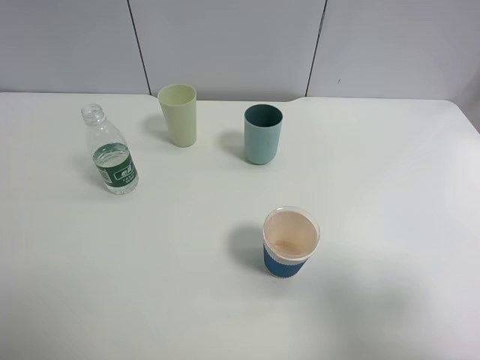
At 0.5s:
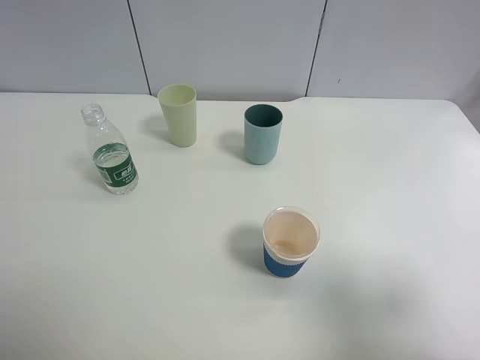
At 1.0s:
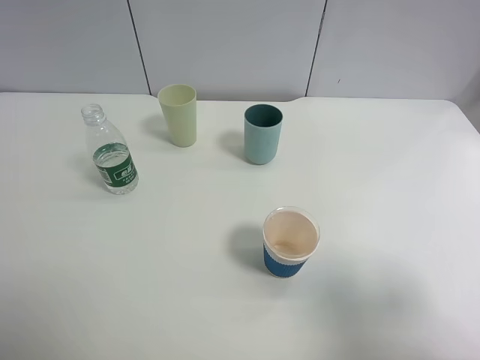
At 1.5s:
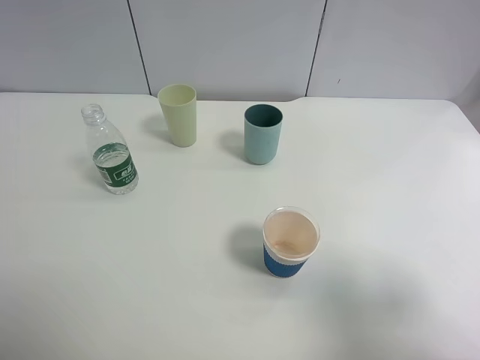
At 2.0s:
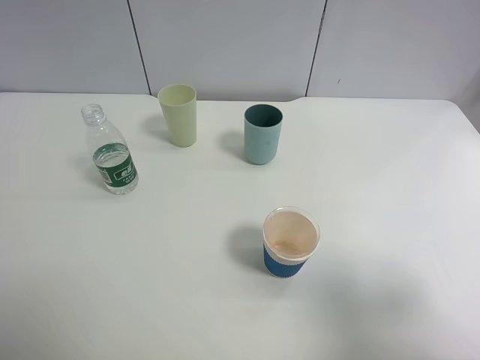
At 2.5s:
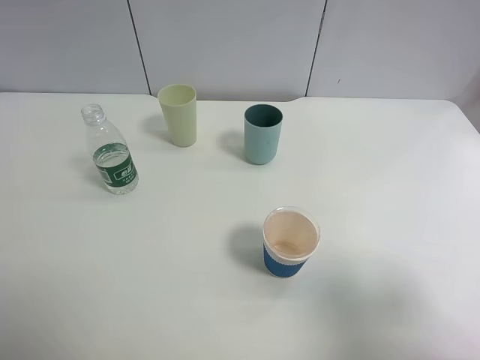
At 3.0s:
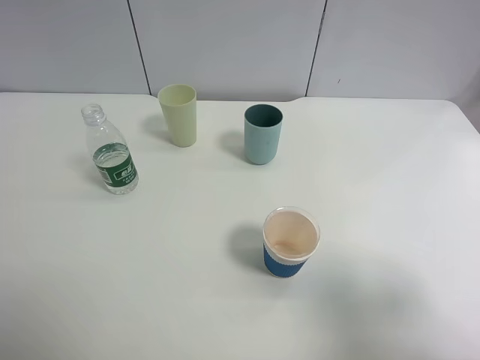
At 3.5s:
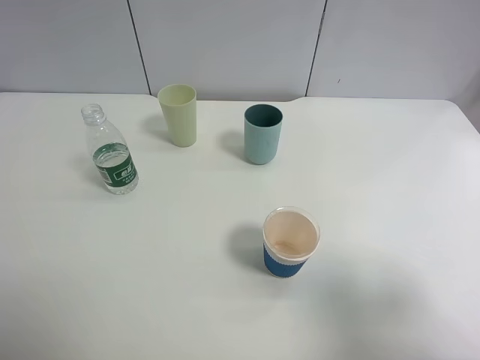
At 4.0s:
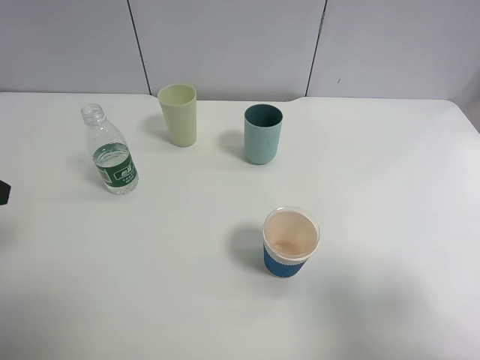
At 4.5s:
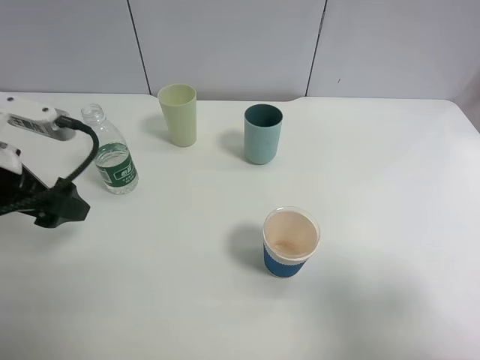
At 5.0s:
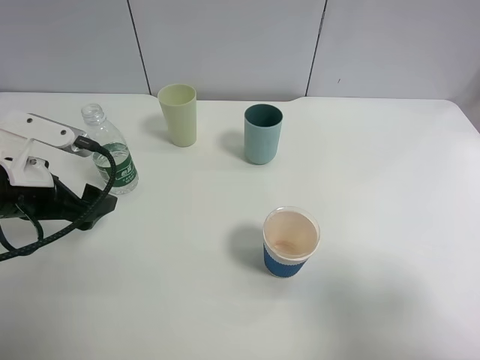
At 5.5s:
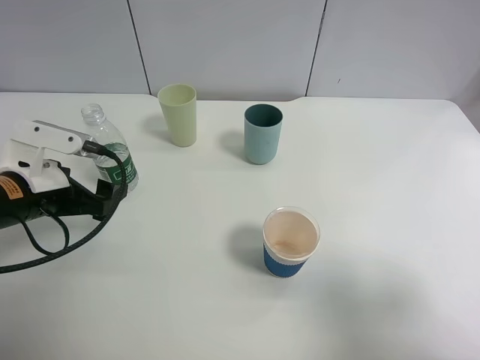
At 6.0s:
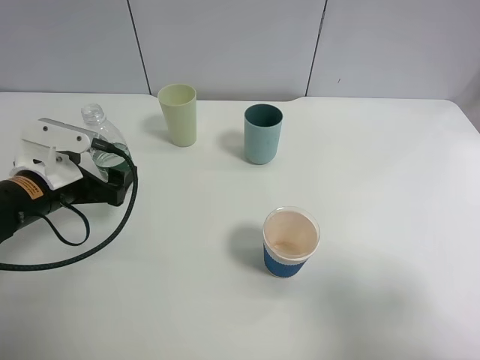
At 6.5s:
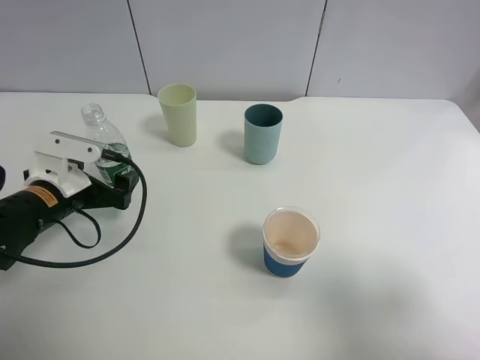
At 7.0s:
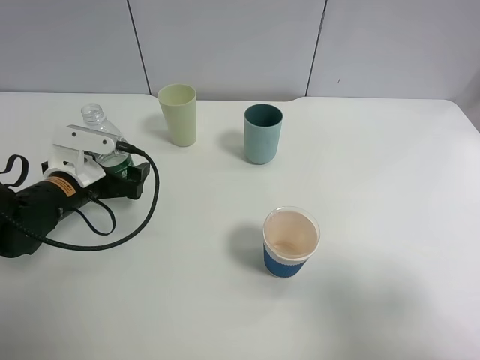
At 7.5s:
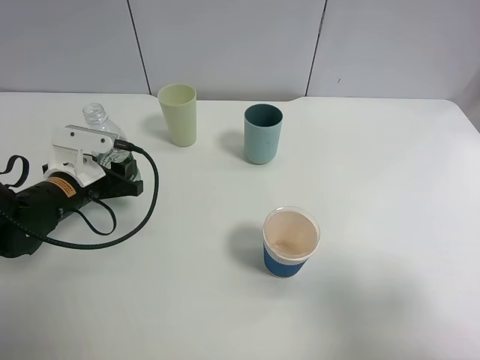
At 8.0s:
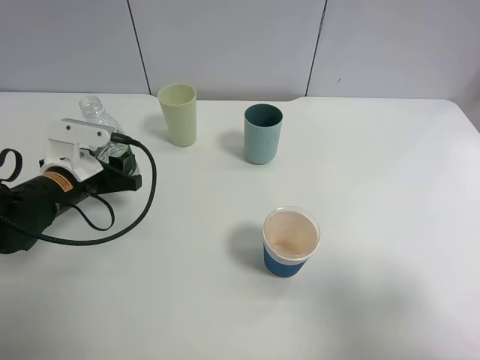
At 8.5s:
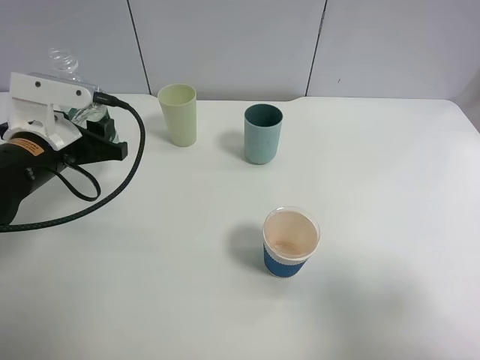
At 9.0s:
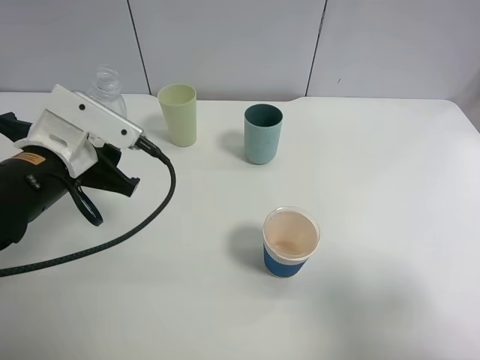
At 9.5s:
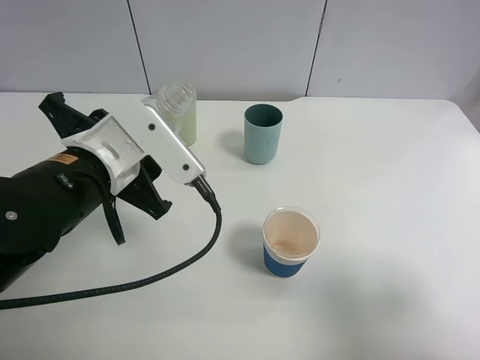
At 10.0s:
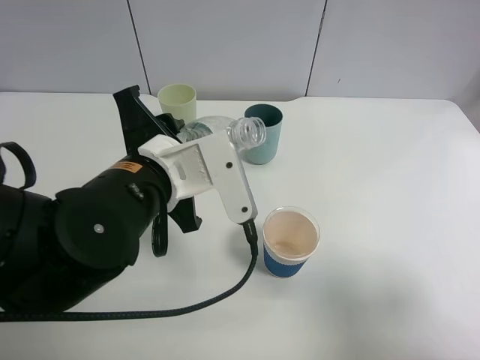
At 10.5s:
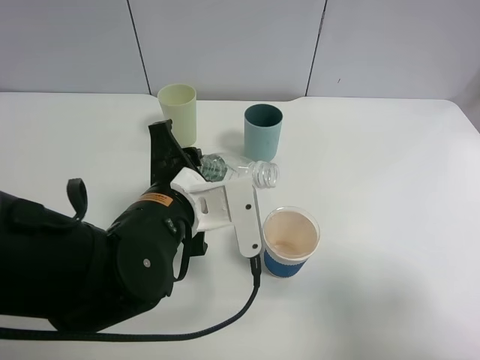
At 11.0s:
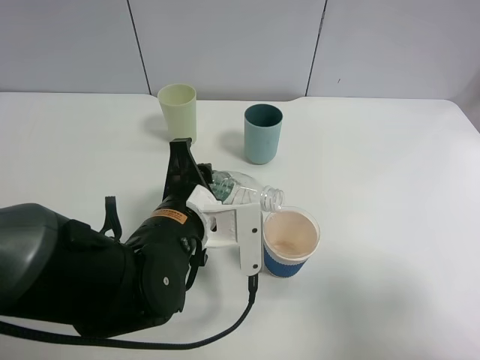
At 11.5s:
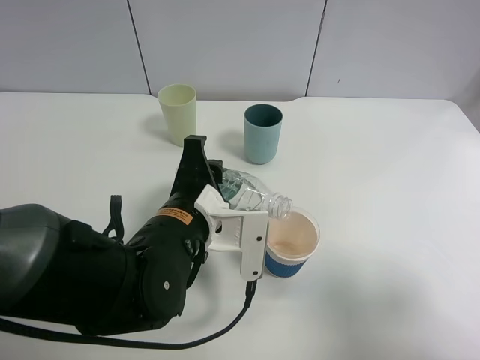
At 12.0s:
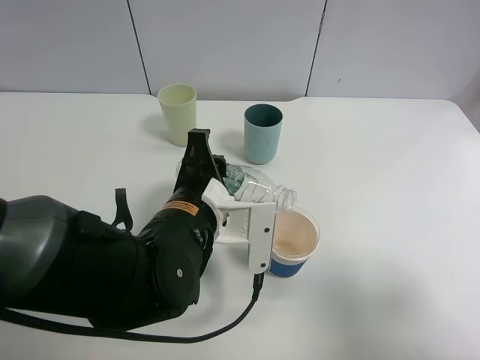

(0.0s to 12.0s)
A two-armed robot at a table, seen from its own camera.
Task of the whole recording: use a clamp to hold the bottle of the drink, pour the beverage into a random cup, then clamp the cup containing the drink and pour the drink into another random cup.
Step, 0.0s - 8.0s: Pick up the water bottle with left gripper.
0.0s - 2.0s: Both grippers stay put.
4.0s - 6.0s: The left gripper shifts roughly 15 cm downward and forward.
6.0s - 8.0s: The left gripper closes up.
8.0s - 10.0s: The left gripper moves to the right, upward and backward, approximately 20 cm.
10.0s - 12.0s: The left gripper moves downward, approximately 5 cm.

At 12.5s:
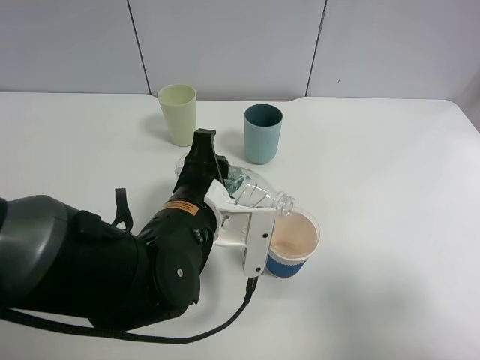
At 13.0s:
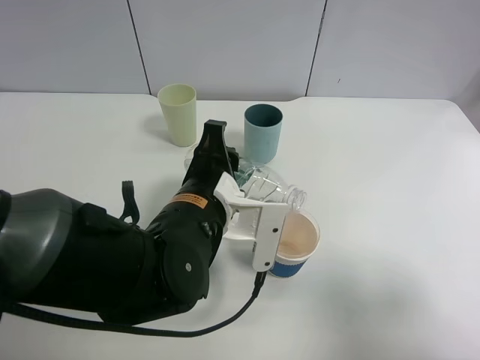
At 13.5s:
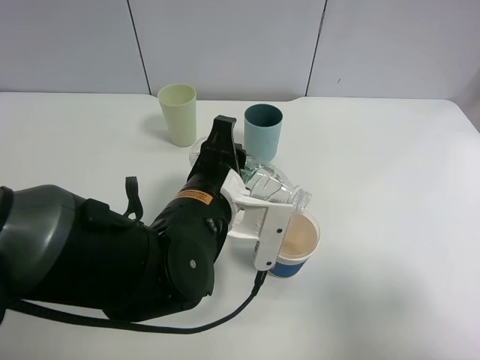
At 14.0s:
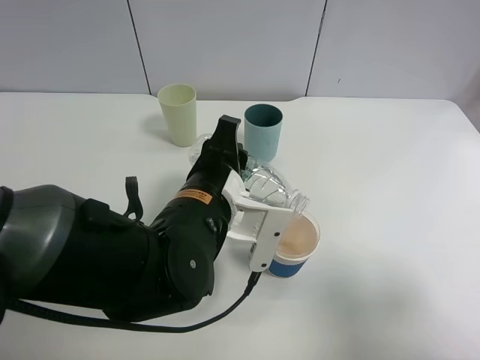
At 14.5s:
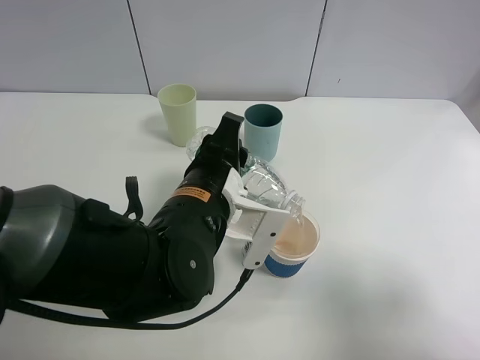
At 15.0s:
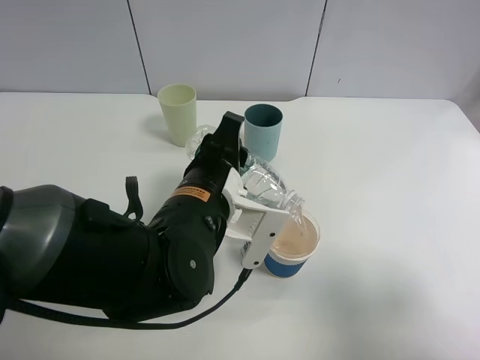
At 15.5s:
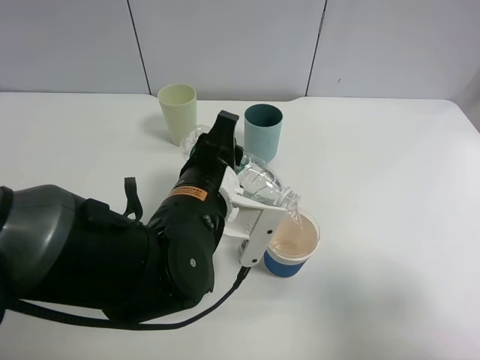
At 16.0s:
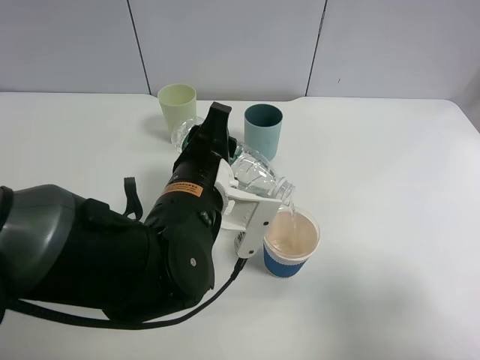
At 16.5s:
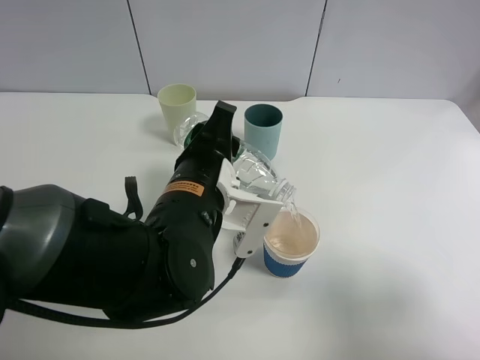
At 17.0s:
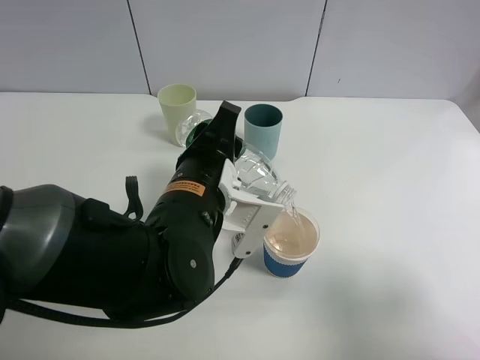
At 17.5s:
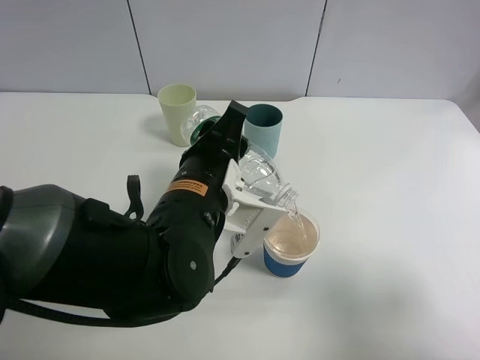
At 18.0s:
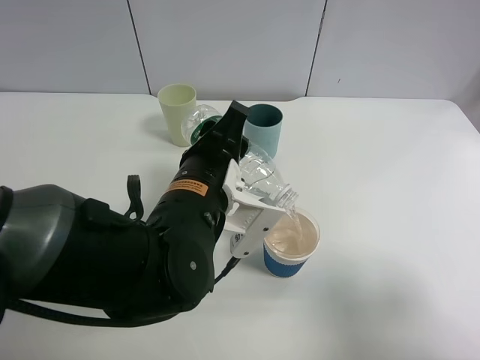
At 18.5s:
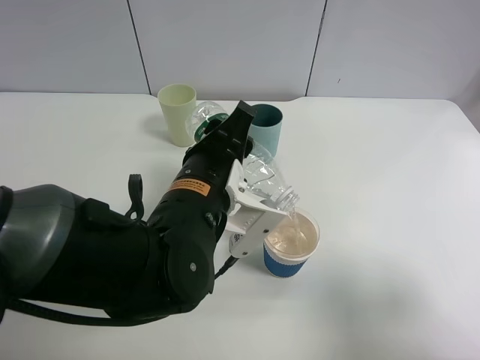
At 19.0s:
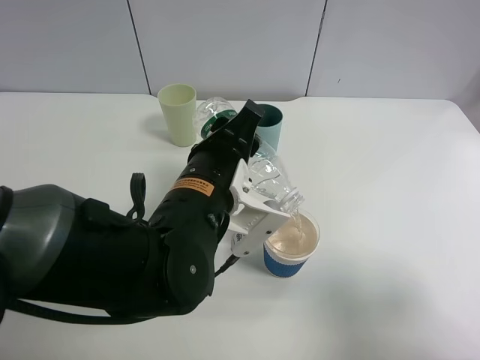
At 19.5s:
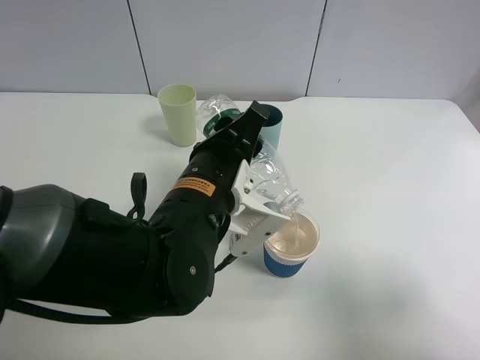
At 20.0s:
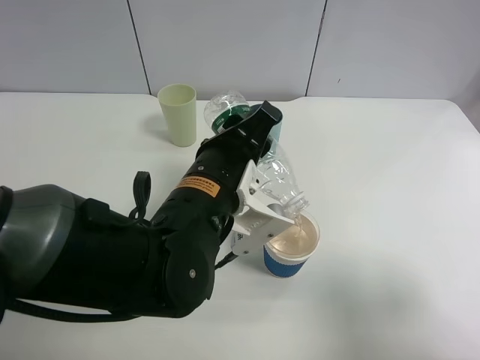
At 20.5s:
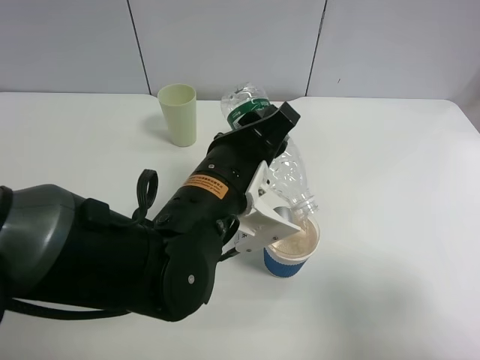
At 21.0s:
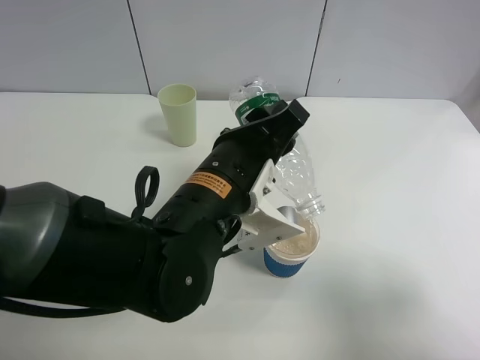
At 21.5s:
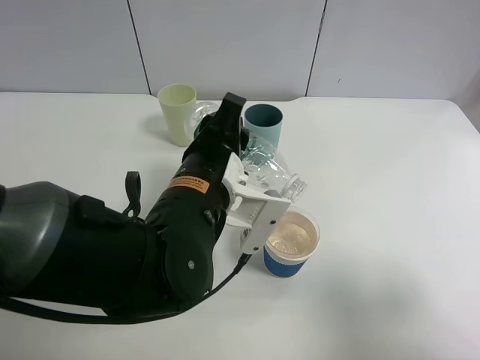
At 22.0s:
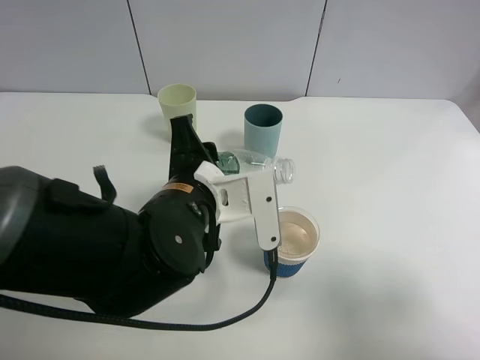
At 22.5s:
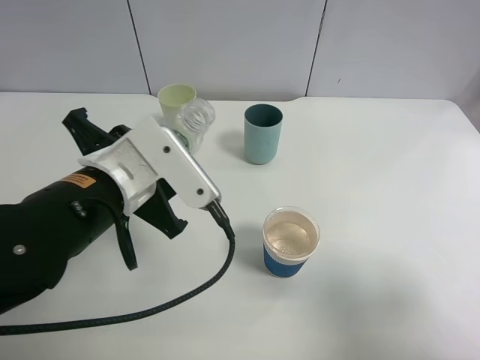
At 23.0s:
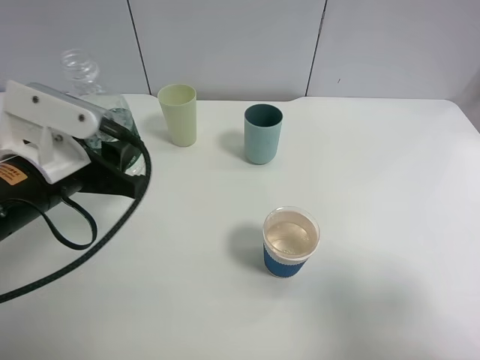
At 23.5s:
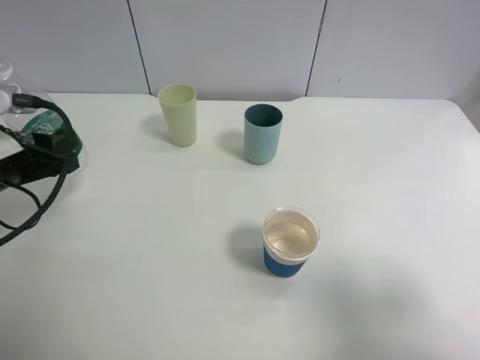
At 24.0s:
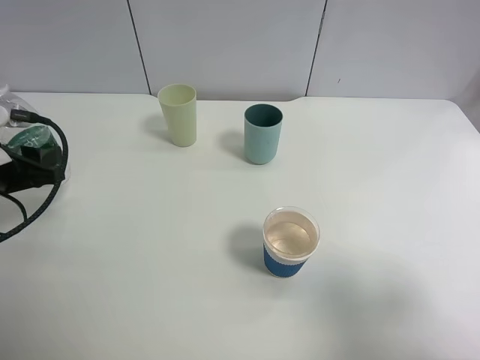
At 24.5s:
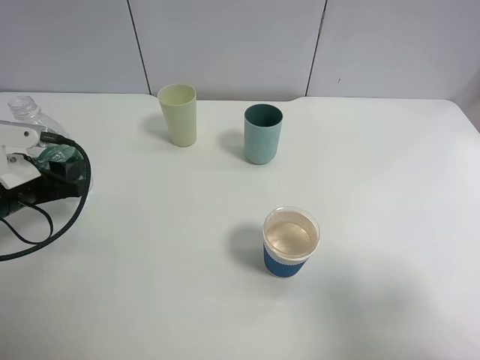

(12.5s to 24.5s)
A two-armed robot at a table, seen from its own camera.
Task of the whole recording: use a clamp to hold the bottle of the drink, pour the beverage into a random cup, then clamp the cup containing the drink and pour the drink into another random cup.
Step, 12.5s - 22.0s: Pour water into the paper cup with left gripper.
12.5s - 16.5s: There are only small adjustments of the grippers.
16.5s - 18.5s: The grippers make only small movements.
18.5s - 20.5s: The grippers make only small movements.
20.5s - 22.5s: The left gripper is displaced to the left by about 10 cm.
22.5s - 24.5s: The left gripper heads to the left and downward, covering some 20 cm.

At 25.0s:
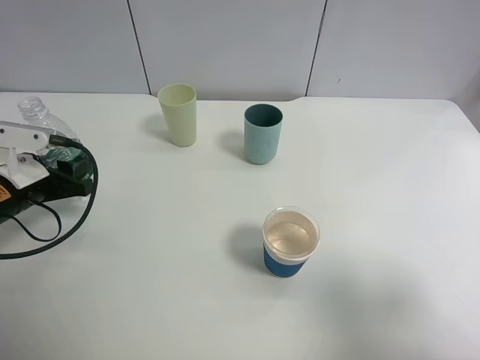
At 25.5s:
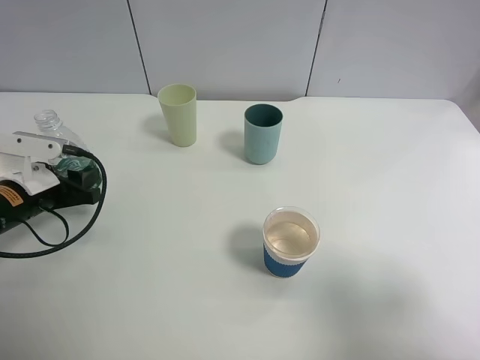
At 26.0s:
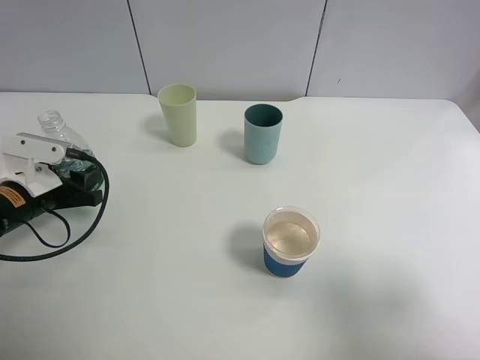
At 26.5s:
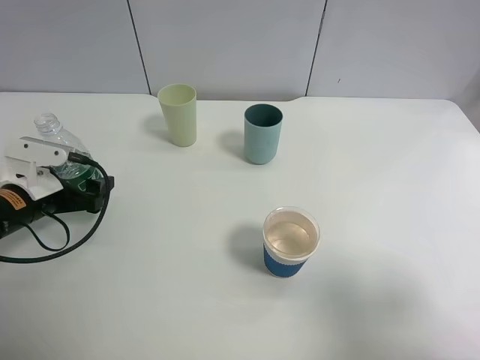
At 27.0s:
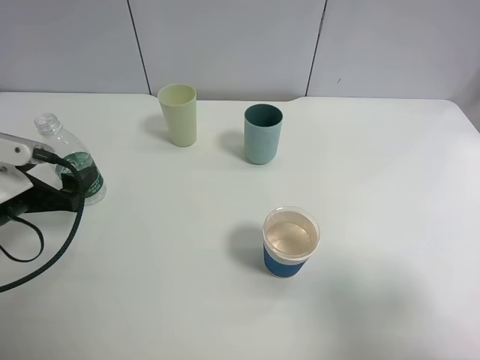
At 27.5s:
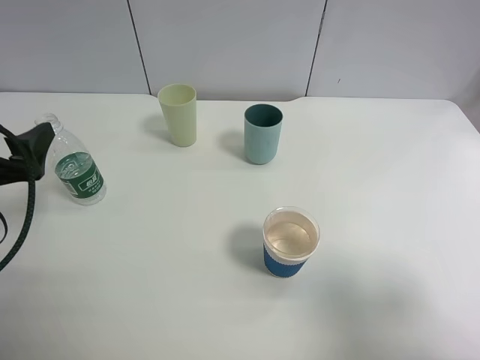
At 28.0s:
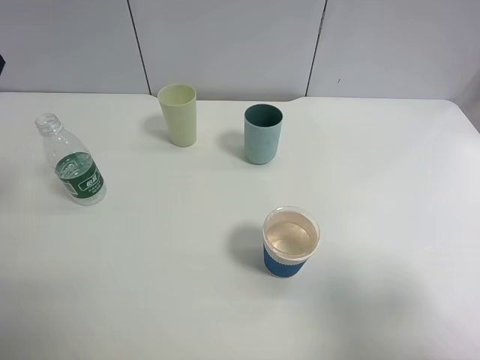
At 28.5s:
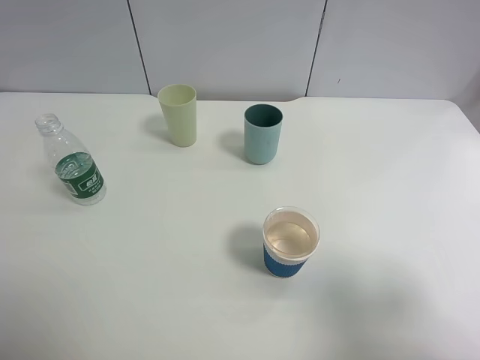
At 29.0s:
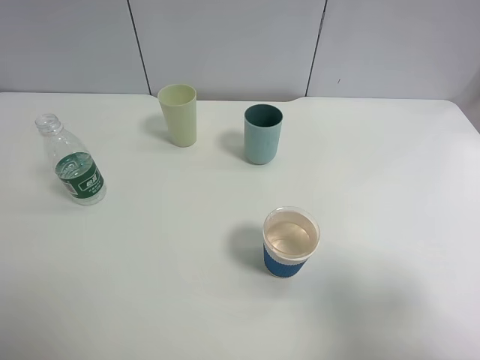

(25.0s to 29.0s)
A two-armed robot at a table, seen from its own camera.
Task of the whole recording: use a clamp to hold the bottle of the drink, pour the beverage into a random cup, then clamp the cup containing the drink and pour the drink into another random cup.
Step, 25.0s - 27.0s: Place the water bottle on the table with left gripper.
25.0s - 27.0s: The left gripper opens.
27.0s - 29.0s: The left gripper moves upward and backward, roughly 30 cm.
